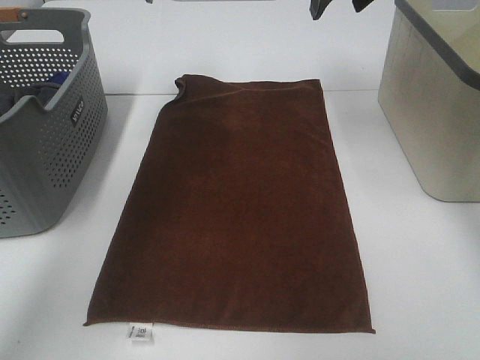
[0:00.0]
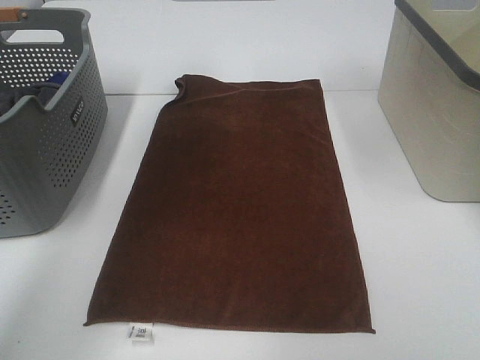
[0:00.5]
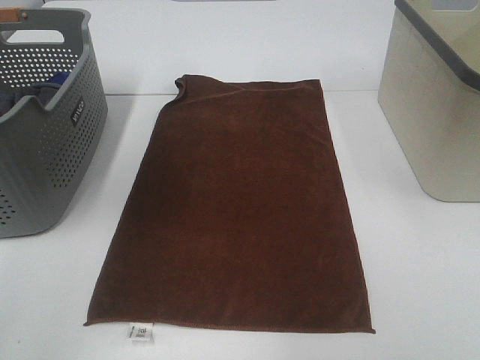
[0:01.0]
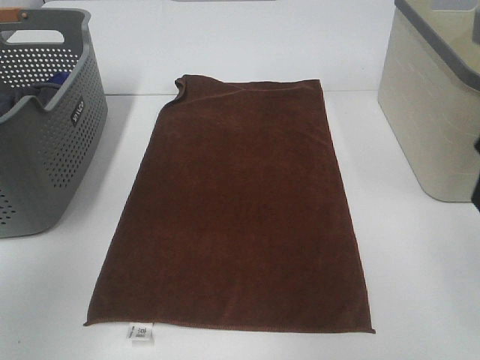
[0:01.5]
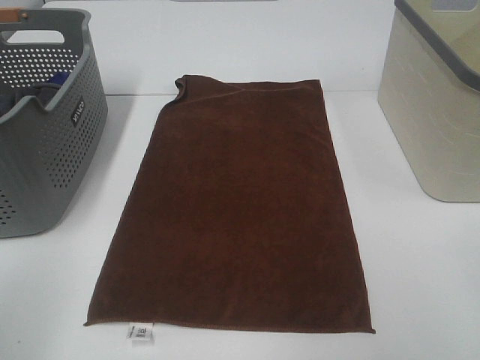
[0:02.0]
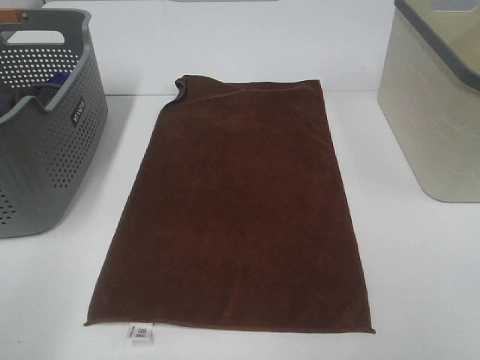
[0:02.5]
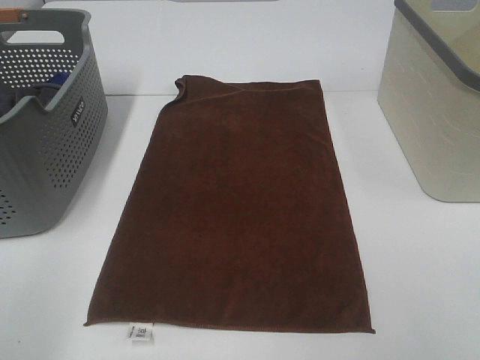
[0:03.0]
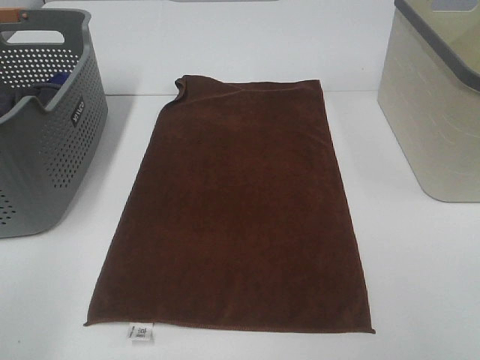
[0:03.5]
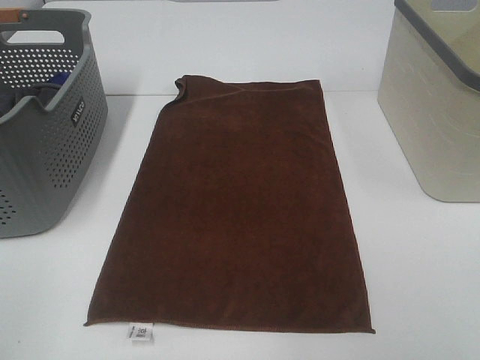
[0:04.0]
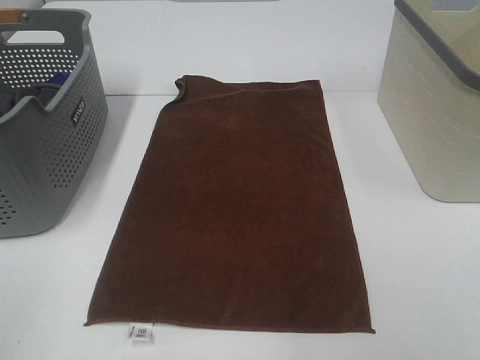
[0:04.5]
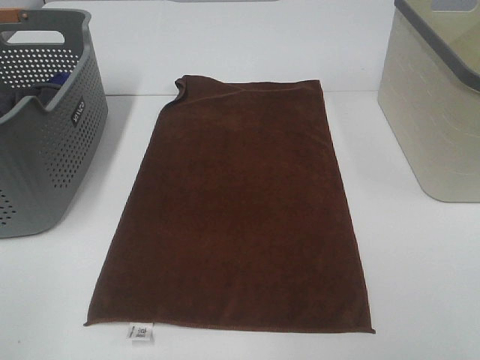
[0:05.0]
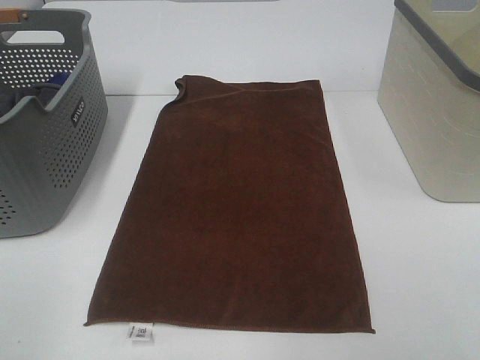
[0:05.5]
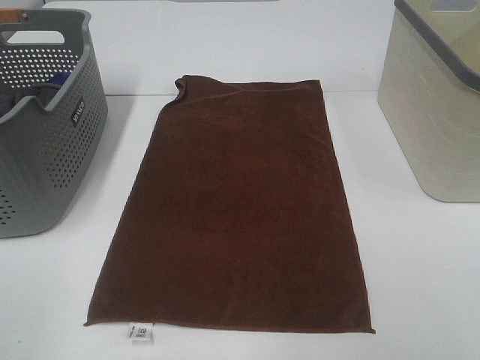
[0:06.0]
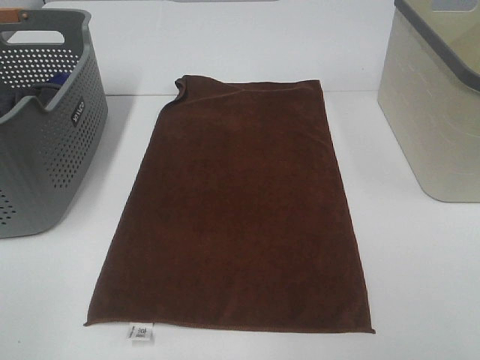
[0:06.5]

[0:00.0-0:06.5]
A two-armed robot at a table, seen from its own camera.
Task of the whole recording: Remove the towel and place it.
0:00.0 to 0:02.0: Both grippers move backward, some 40 cm.

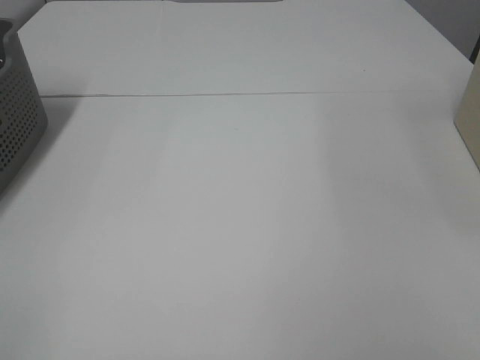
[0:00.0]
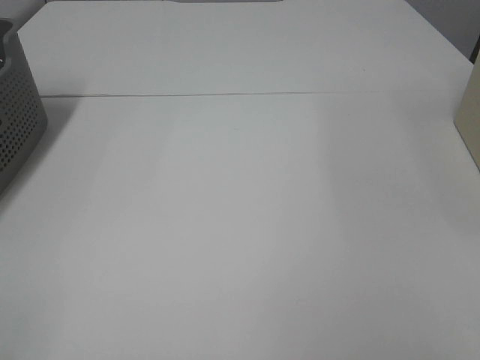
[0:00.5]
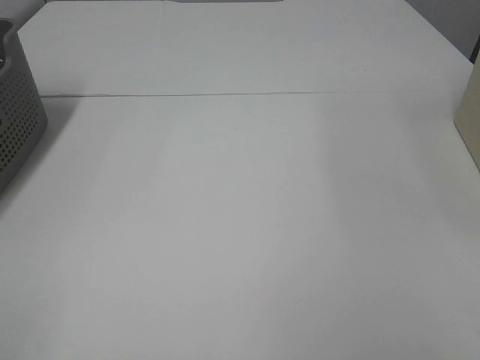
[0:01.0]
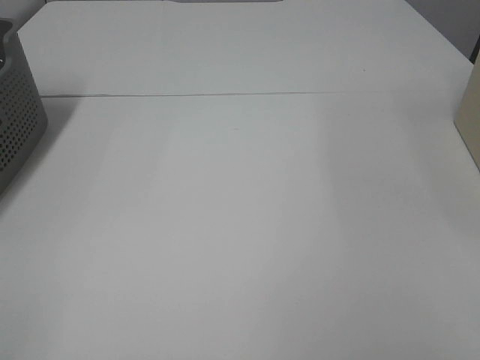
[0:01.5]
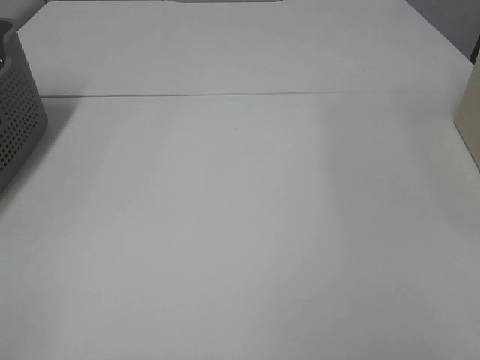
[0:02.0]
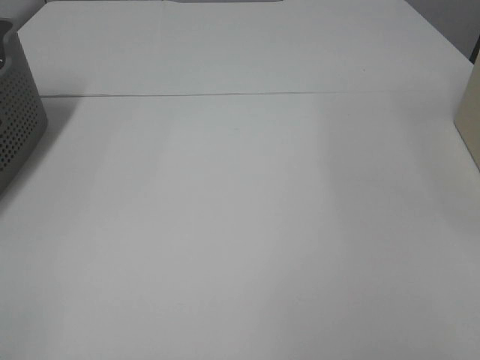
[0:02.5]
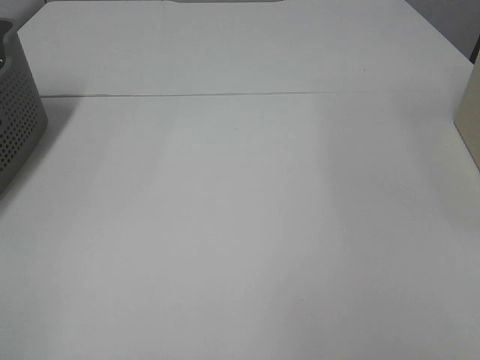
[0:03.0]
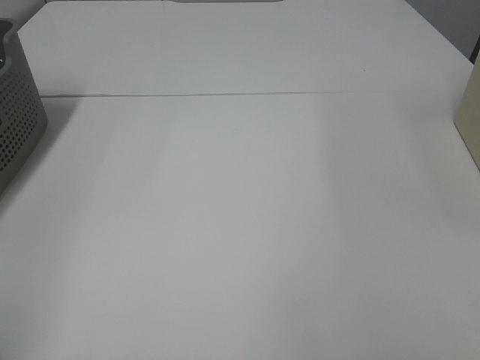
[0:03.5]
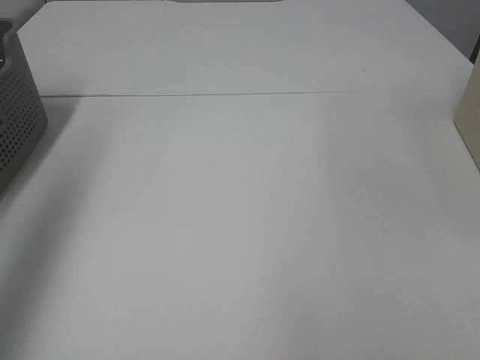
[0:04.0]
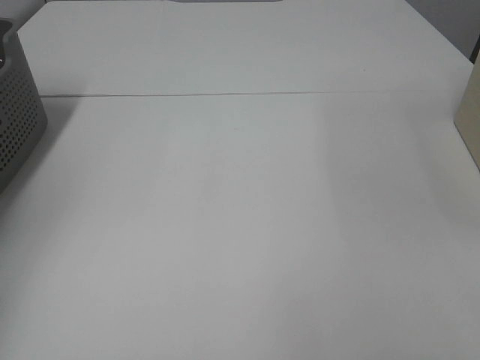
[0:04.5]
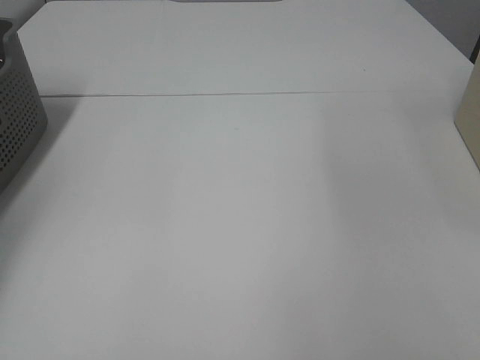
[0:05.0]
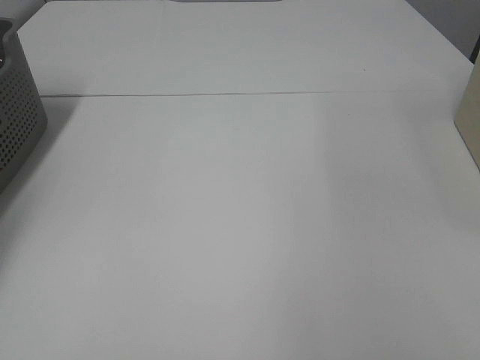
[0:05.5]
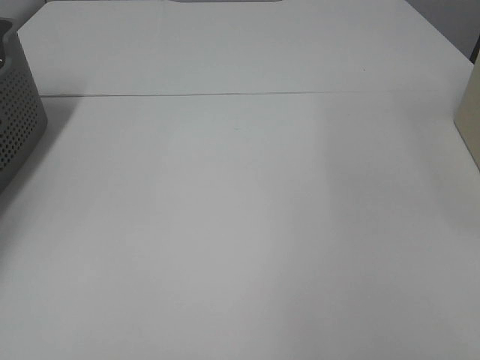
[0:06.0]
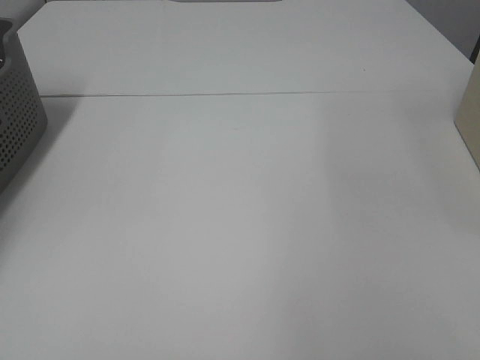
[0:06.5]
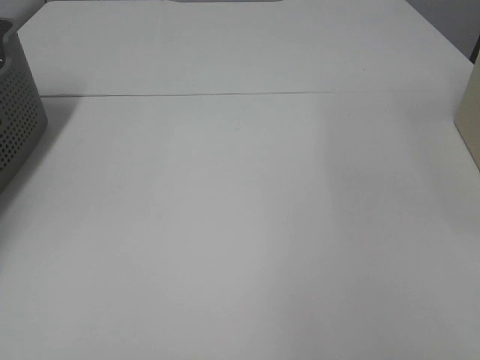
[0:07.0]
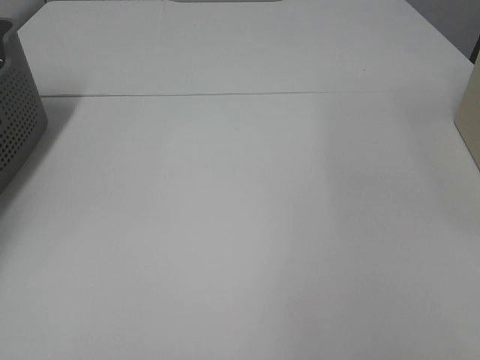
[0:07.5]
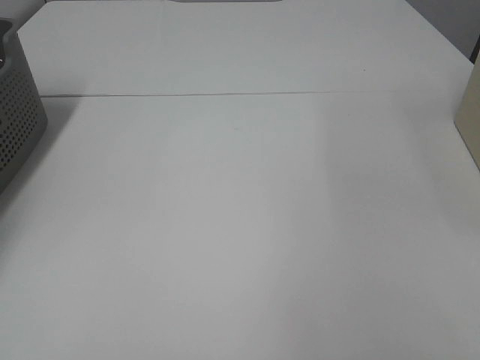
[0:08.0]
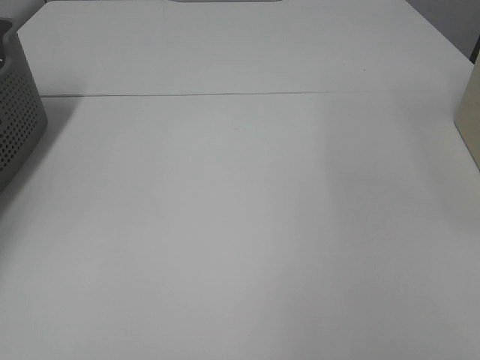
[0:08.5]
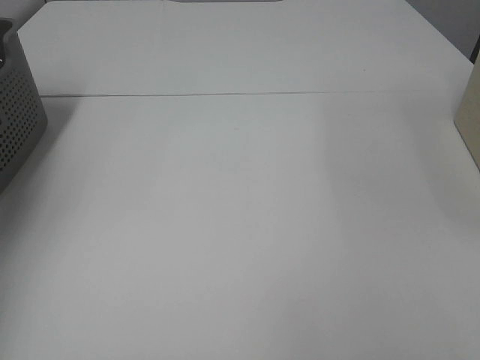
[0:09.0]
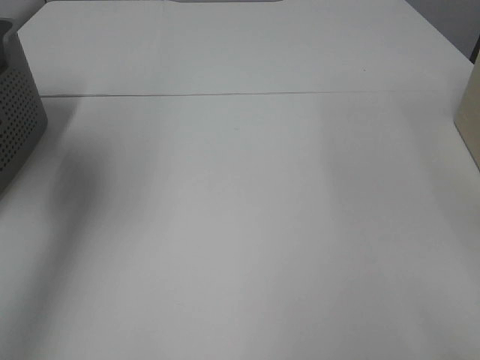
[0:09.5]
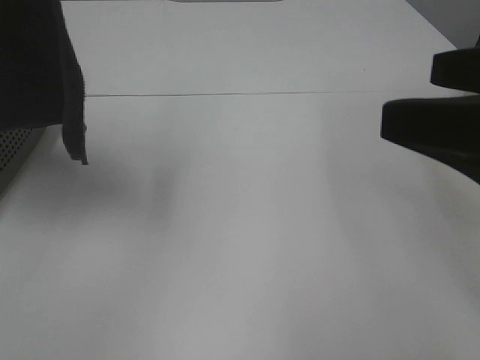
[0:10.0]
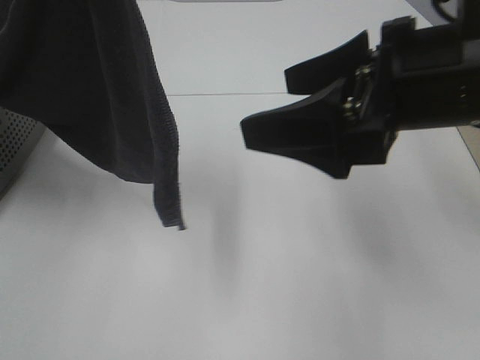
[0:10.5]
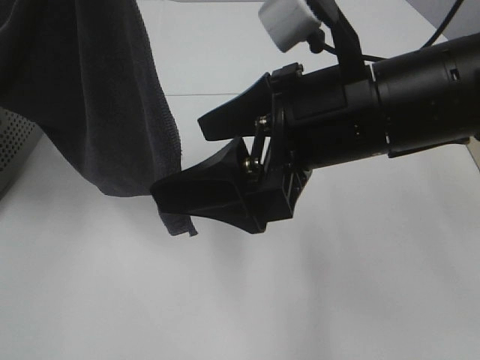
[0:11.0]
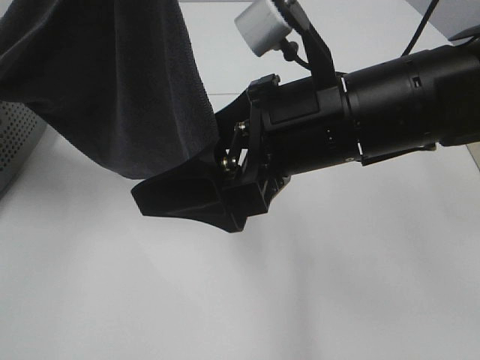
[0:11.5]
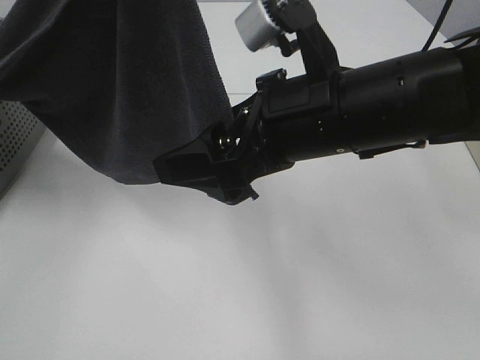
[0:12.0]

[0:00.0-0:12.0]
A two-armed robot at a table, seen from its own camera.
Task of the whole recording: Remove the towel and place it.
0:00.0 to 0:02.0: The two grippers keep their place.
0:02.0 to 0:04.0: The left gripper heads forward and upward, covering some 25 cm.
0:04.0 to 0:06.0: The left gripper travels forward, downward and to the left by some 35 cm.
0:08.0 to 0:10.0: The right gripper heads forward, covering about 15 cm; the left gripper is displaced to the right, upward and backward by some 50 cm.
0:10.0 to 0:12.0: The right gripper is displaced to the left, forward and downward by approximately 20 cm, while the left gripper shifts about 5 cm to the right.

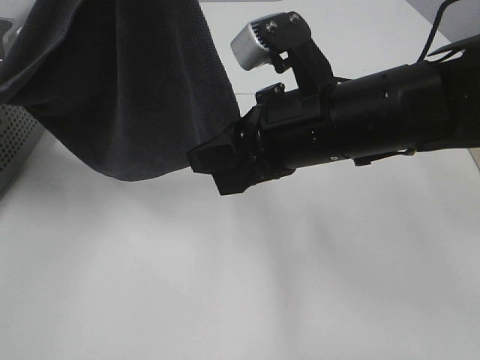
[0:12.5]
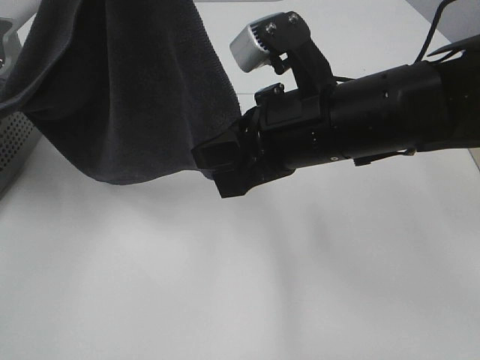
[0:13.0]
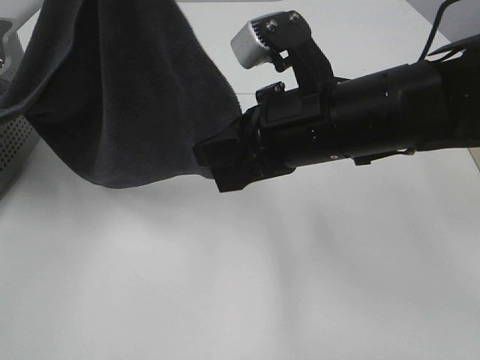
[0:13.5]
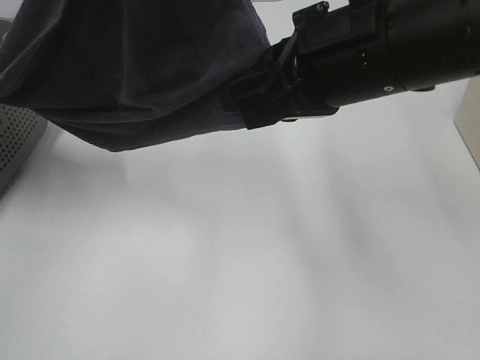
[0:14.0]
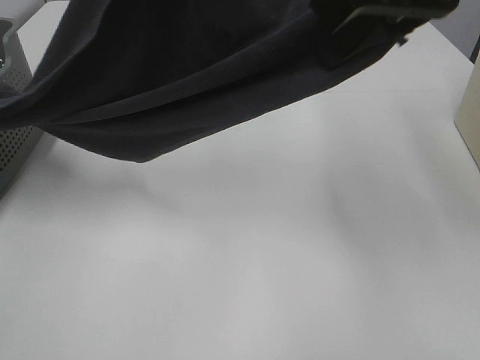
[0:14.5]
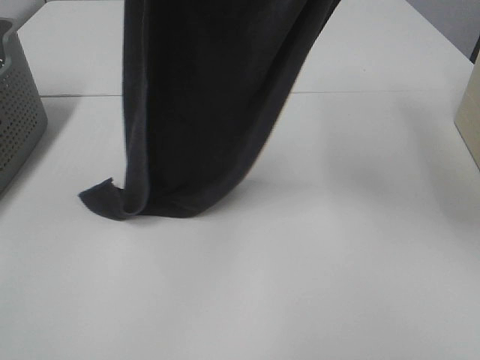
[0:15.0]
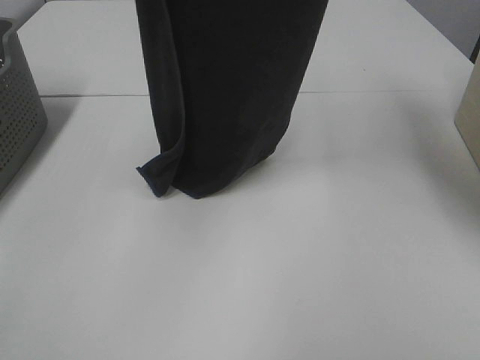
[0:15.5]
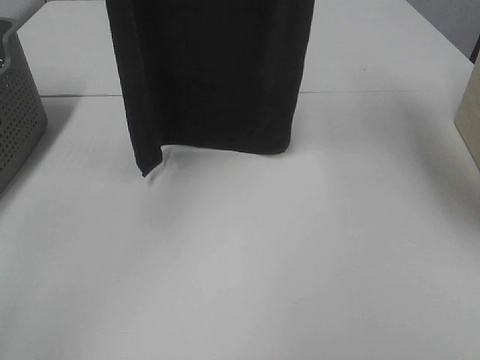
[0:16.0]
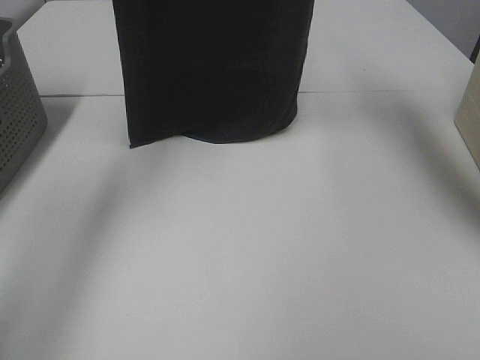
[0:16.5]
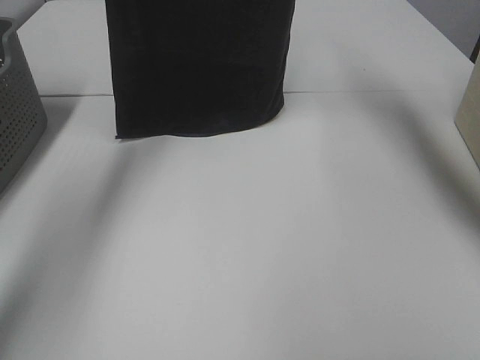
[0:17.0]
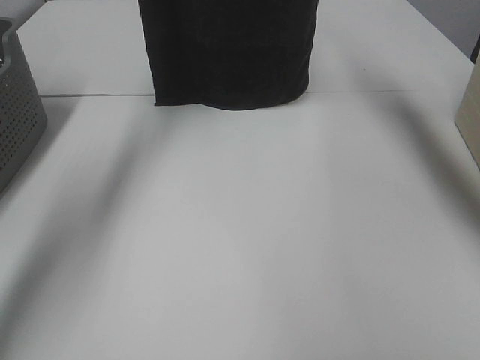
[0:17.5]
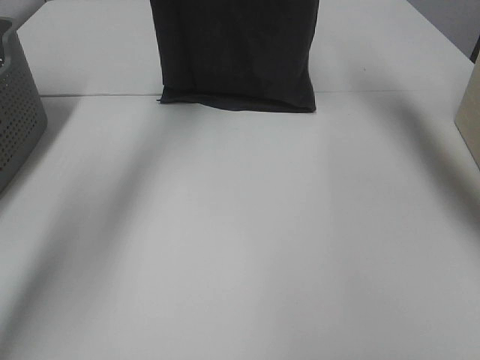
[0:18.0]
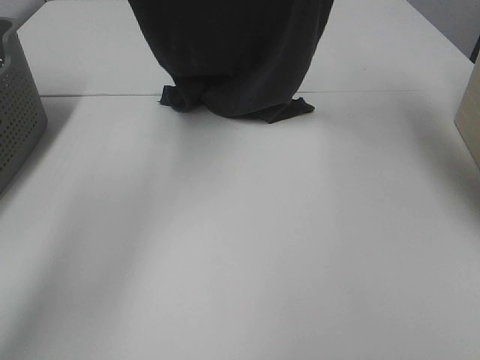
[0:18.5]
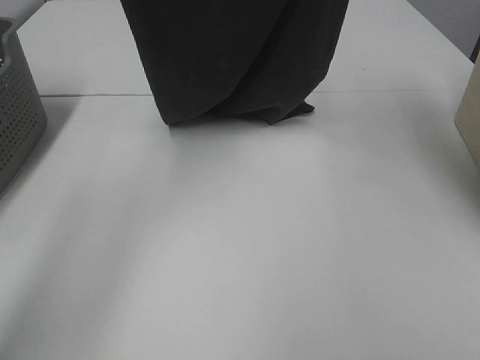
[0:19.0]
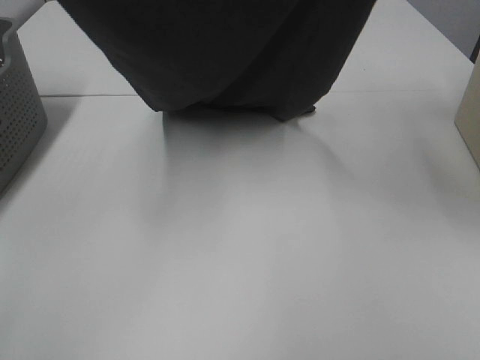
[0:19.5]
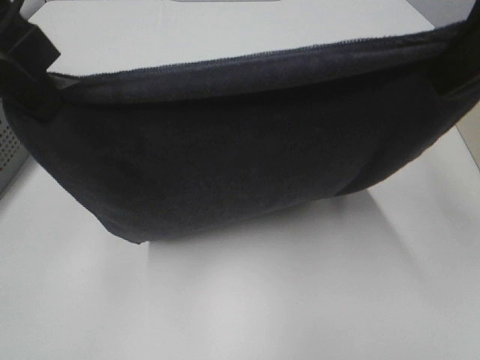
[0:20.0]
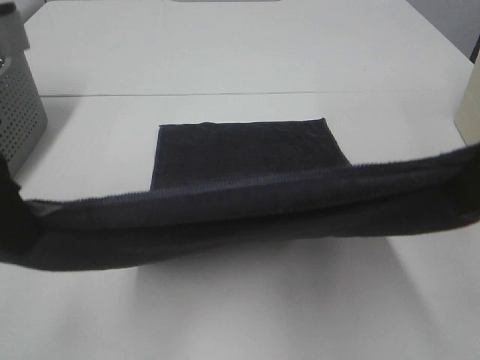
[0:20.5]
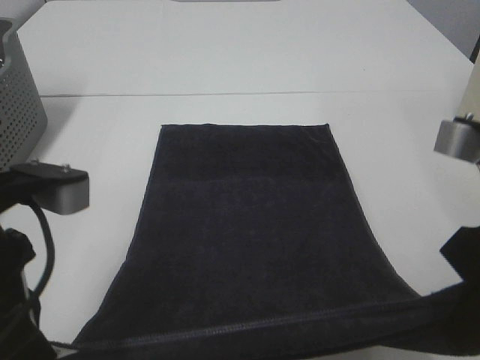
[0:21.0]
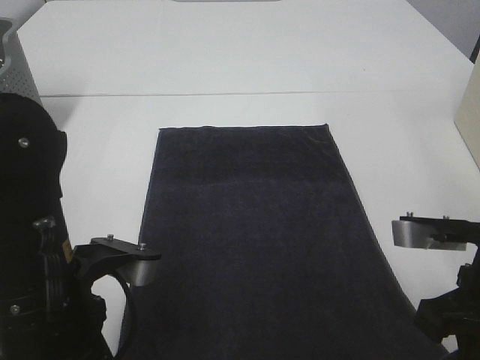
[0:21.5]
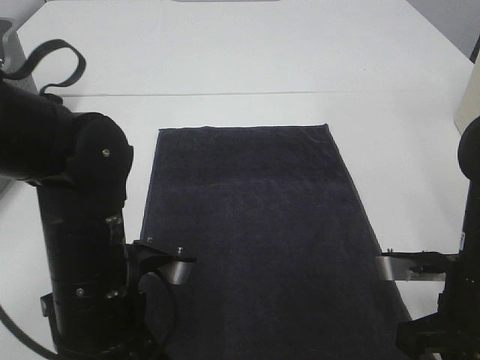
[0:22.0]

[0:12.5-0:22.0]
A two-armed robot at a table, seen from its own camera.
Task of the whole recording: Remove the towel and place it.
Step, 0:13.5 to 0:18.5: Left hand: spread the grey towel flat on the table.
Step, 0:13.5 to 0:18.5: Right hand: spread the grey towel flat on the table.
0:12.5 to 0:14.5: The right gripper moves upward, about 15 cm.
0:14.5 to 0:16.5: The right gripper heads forward and upward, covering approximately 20 cm. The left gripper is displaced forward and to the left by about 20 cm.
0:16.5 to 0:18.0: Both grippers move forward and downward, roughly 10 cm.
0:18.0 to 0:20.0: The grippers both shift backward by about 30 cm.
0:20.0 to 0:22.0: The two grippers go about 25 cm downward.
